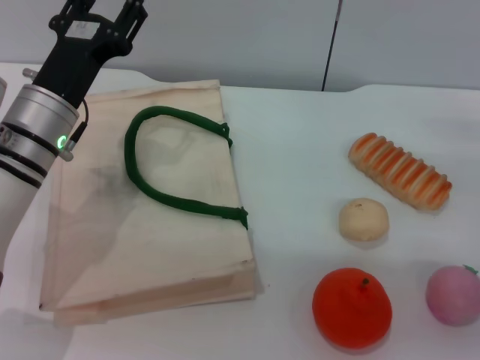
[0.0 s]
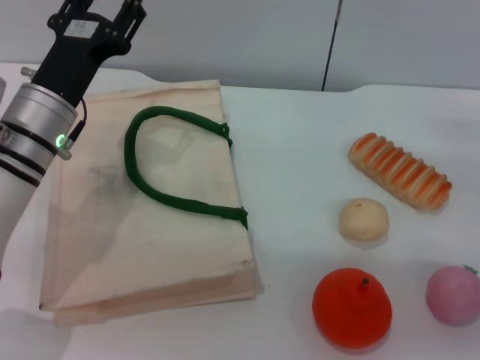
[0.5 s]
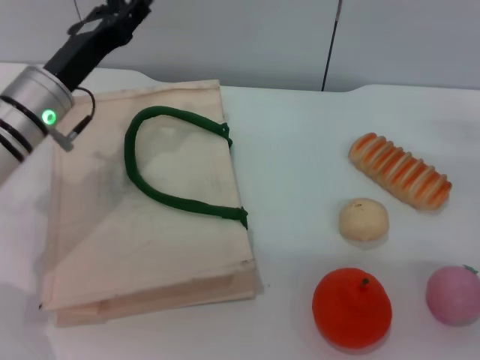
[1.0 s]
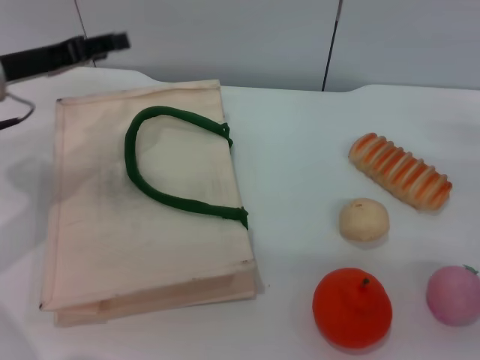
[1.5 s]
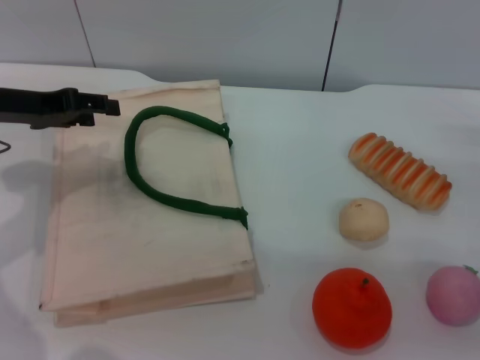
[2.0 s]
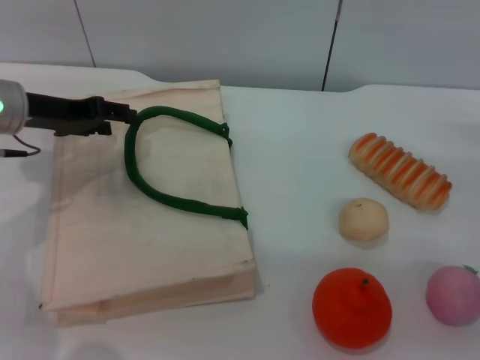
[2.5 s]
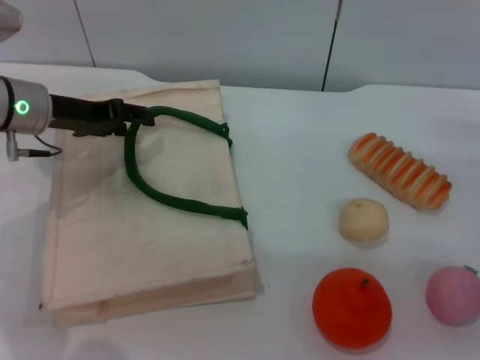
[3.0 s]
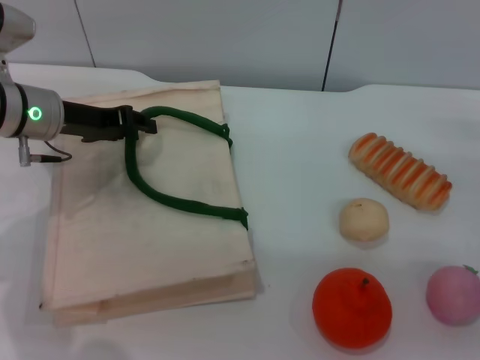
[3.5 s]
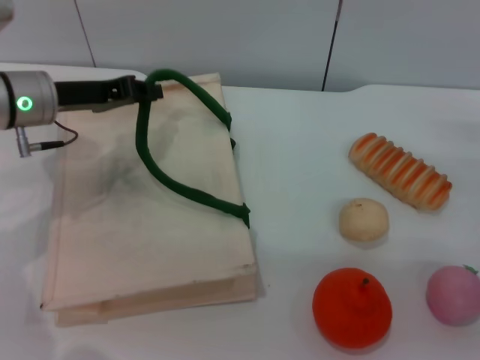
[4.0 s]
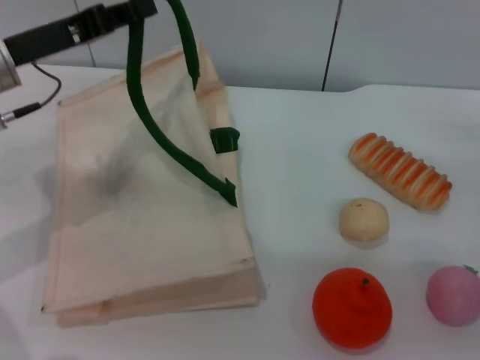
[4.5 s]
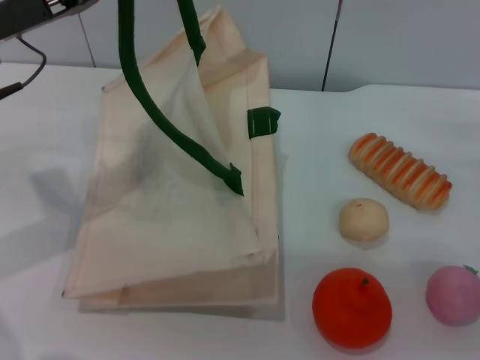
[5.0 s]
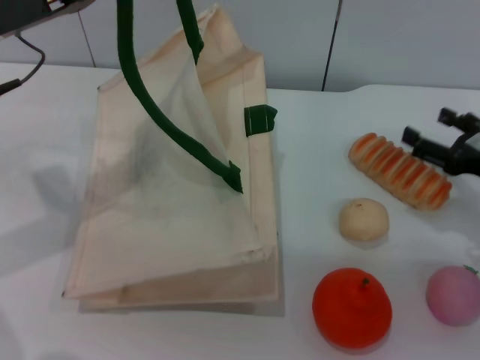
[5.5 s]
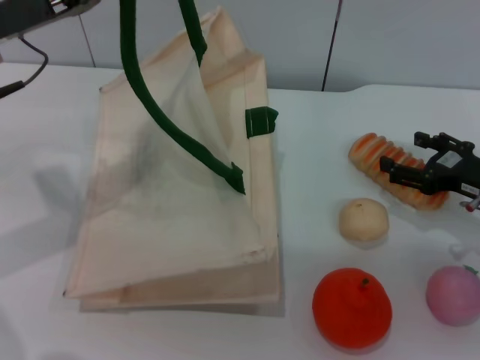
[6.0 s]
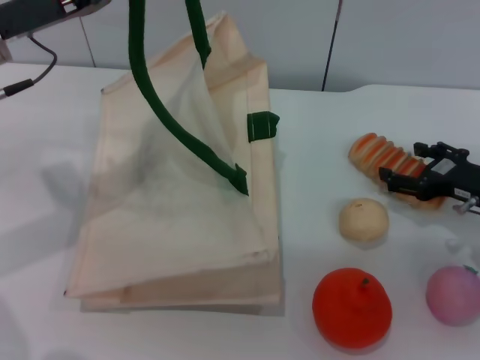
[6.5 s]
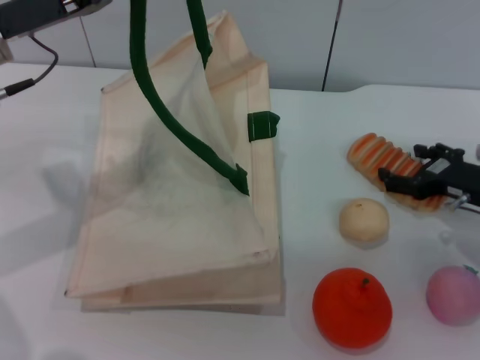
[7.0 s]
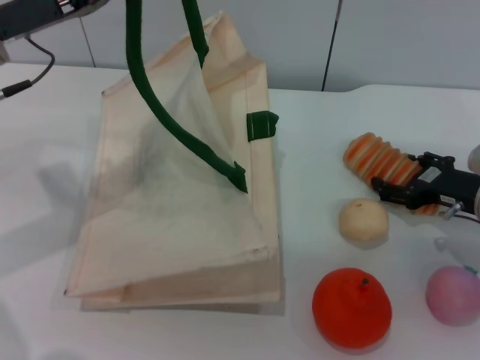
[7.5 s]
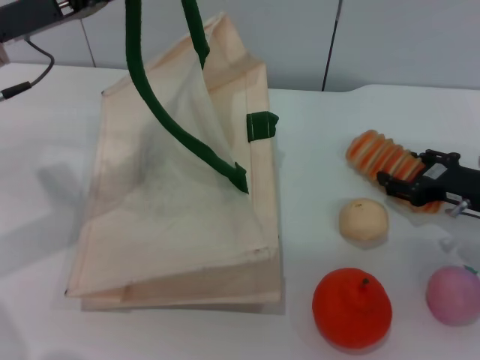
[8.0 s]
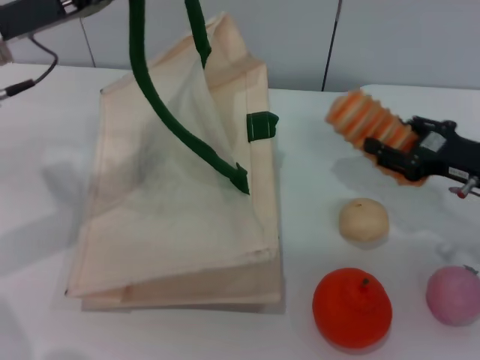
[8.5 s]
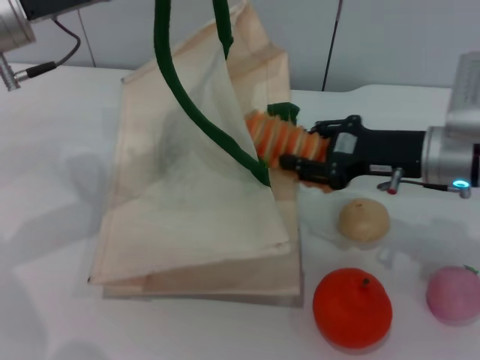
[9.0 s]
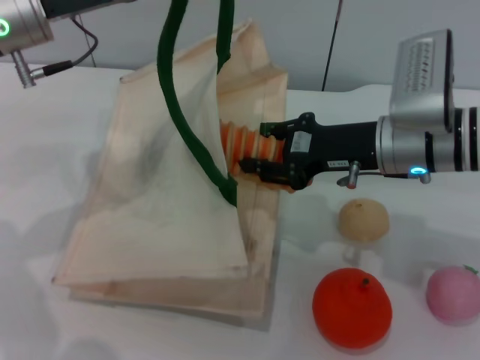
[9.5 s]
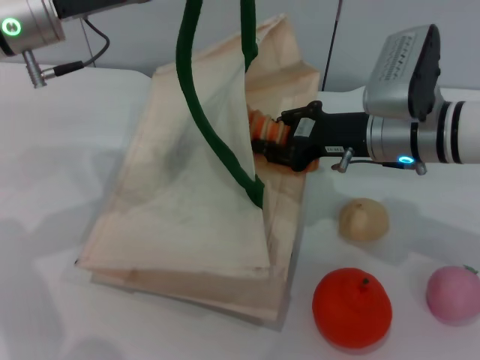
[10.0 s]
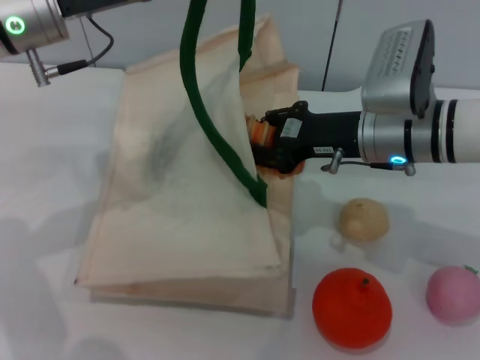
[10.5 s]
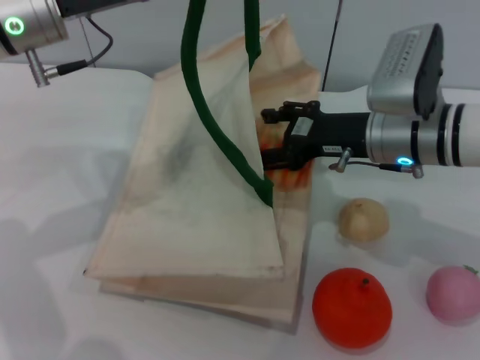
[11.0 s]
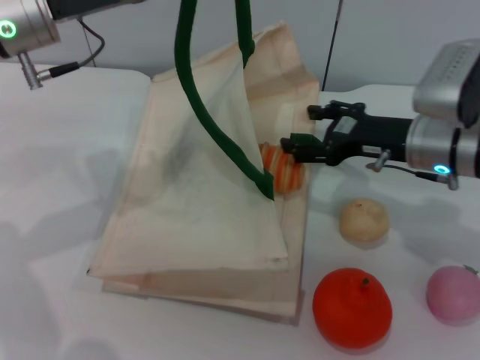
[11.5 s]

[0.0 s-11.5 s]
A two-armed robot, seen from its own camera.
Task of the whole recording: pick up the bread from the table and place it in the white handbag.
Step, 0.0 to 5.0 s: Lift the woven bag with the left gripper to open it.
Step, 5.5 to 8.0 s: Pick up the bread with the right gripper.
Step, 8.5 to 11.5 s: Place the bread into the woven bag with the right gripper.
0.0 to 2.0 s: The left gripper shifts approximately 10 cm to the left and upward.
2.0 to 4.0 s: The left gripper ends up some 5 cm from where it was, and closes.
4.0 to 6.0 s: The left gripper is displaced upward by about 5 cm.
6.0 to 7.5 s: There are only small adjustments of the grippers.
7.5 to 9.5 s: The right gripper travels to the left and upward by about 15 cm, and closes its fingers.
9.5 to 11.5 s: The right gripper opens.

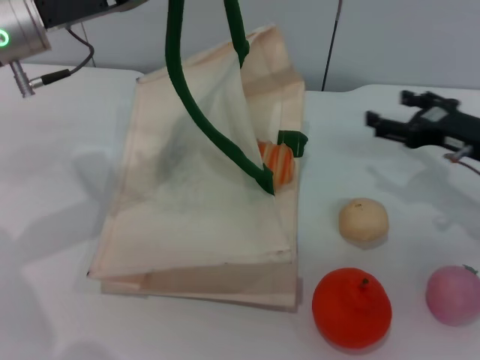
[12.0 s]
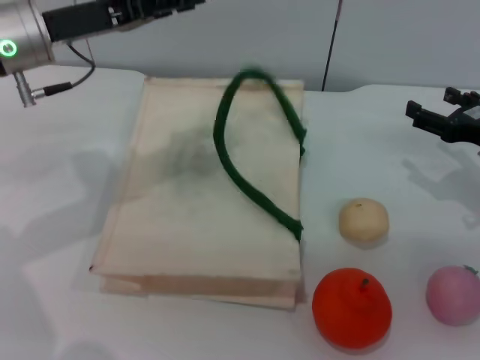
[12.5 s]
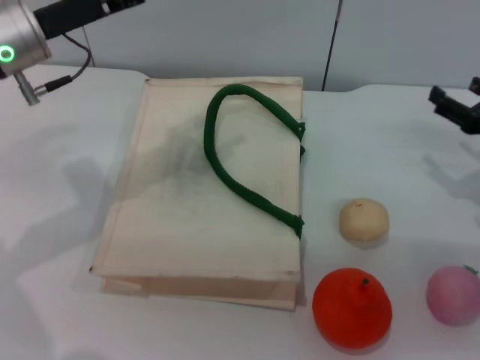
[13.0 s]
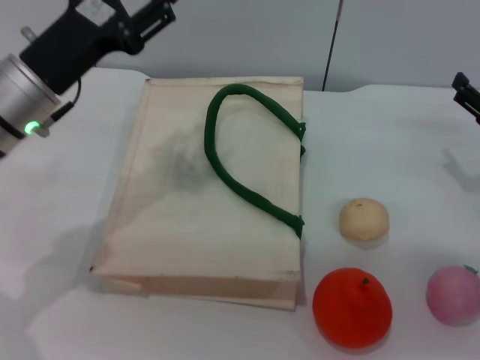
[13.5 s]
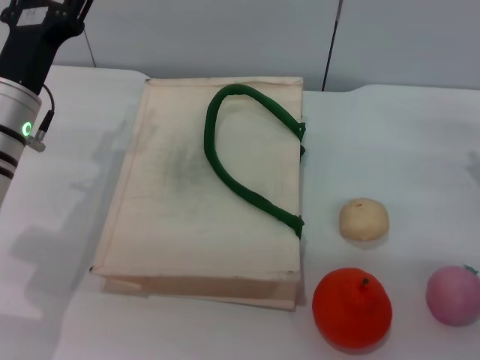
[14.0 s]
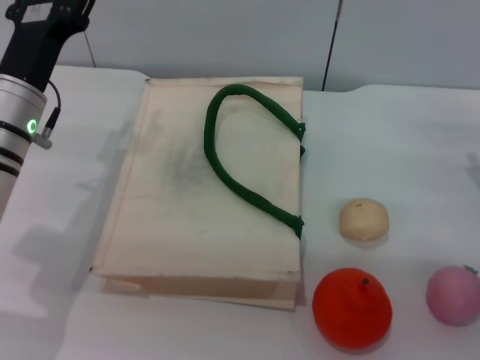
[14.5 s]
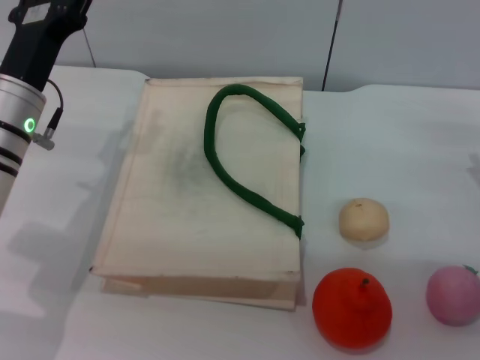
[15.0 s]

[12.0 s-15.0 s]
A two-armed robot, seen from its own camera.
Task of the whole recording: pick up the bread from the table and place it in the white handbag.
Step, 12.0 to 12.5 s: Lower the woven bag with the left gripper to close it.
12.0 to 13.5 s: The right gripper moves some 5 cm. Meanwhile the left gripper travels downward by about 5 cm, and opens up.
